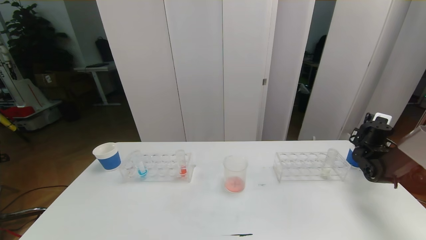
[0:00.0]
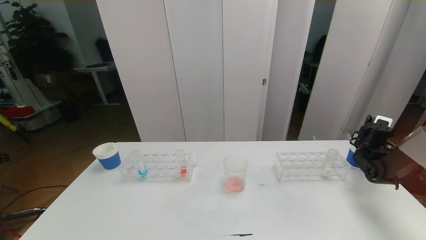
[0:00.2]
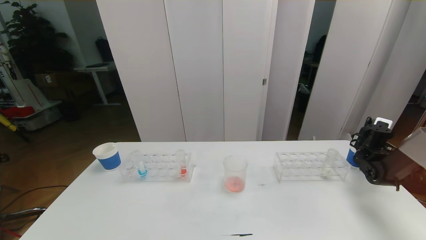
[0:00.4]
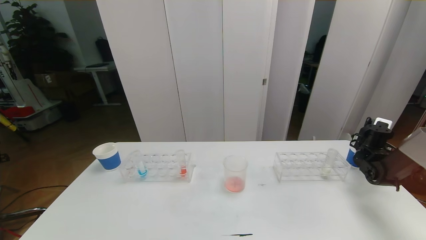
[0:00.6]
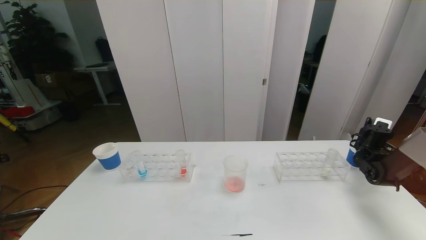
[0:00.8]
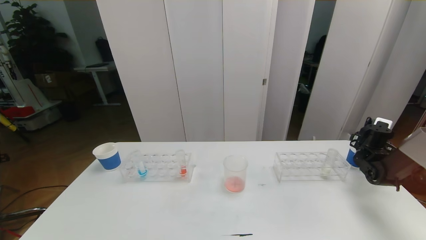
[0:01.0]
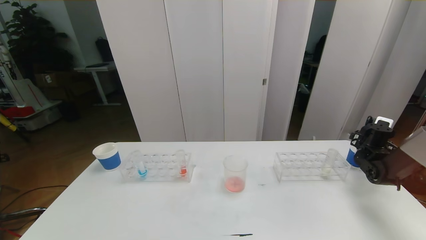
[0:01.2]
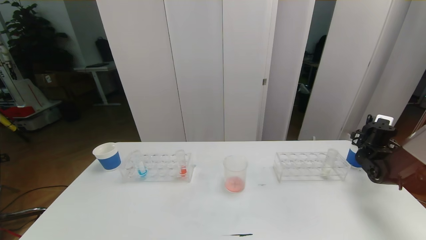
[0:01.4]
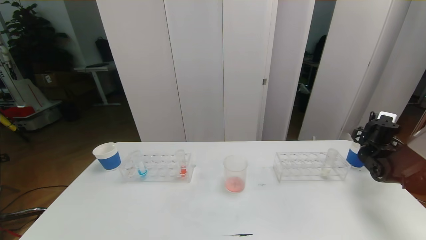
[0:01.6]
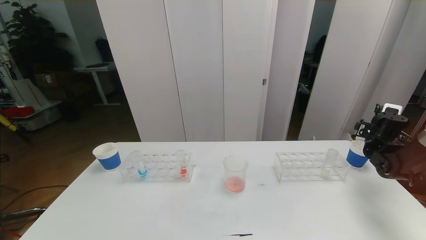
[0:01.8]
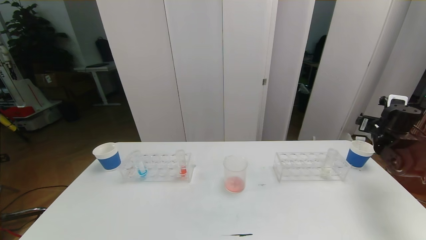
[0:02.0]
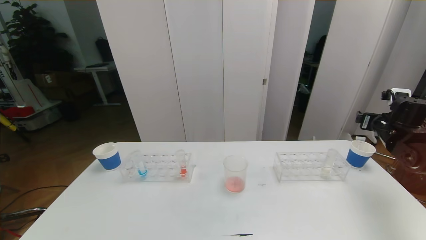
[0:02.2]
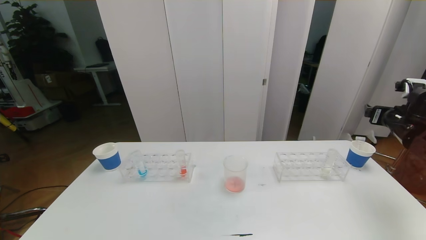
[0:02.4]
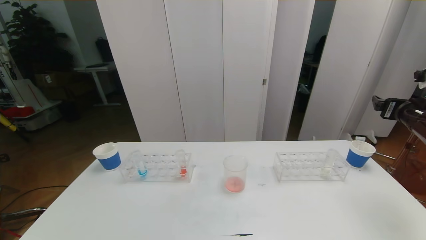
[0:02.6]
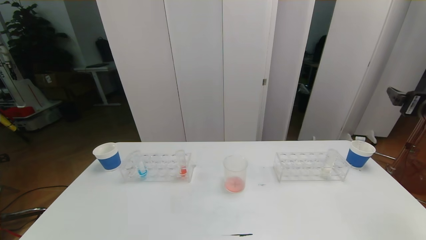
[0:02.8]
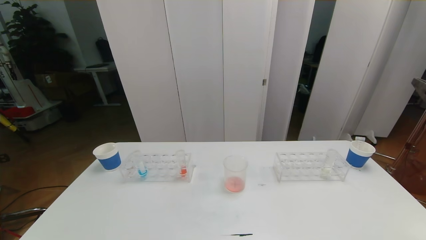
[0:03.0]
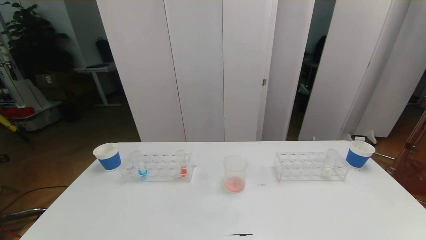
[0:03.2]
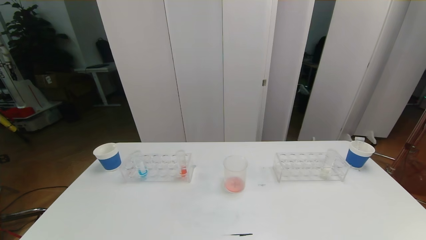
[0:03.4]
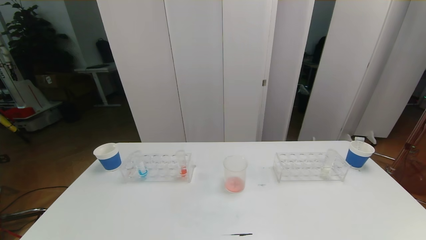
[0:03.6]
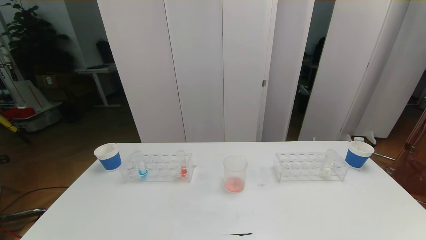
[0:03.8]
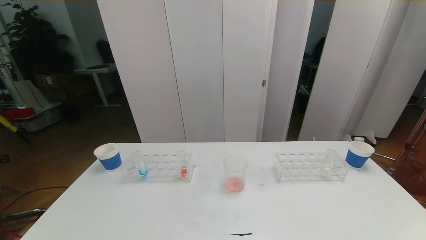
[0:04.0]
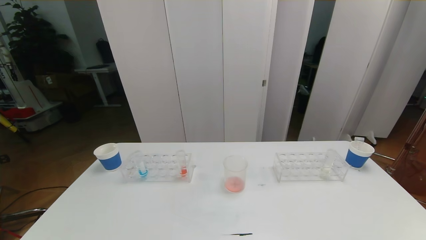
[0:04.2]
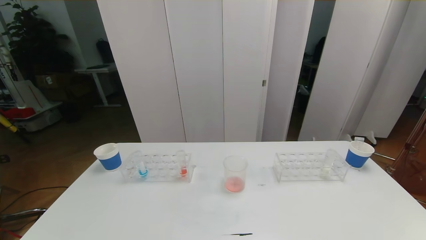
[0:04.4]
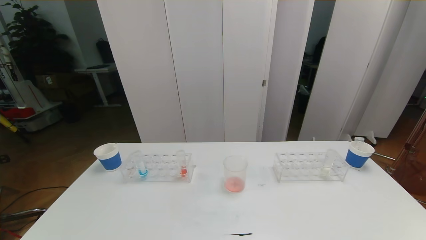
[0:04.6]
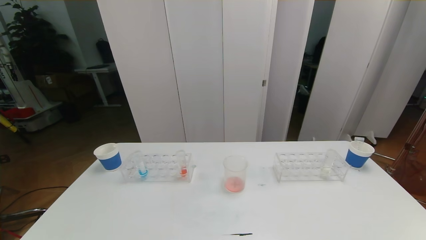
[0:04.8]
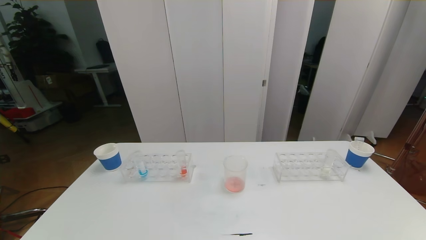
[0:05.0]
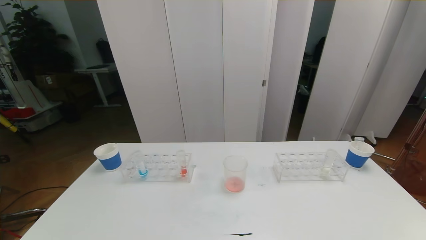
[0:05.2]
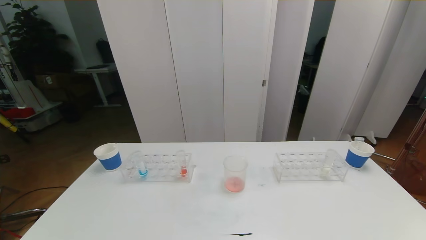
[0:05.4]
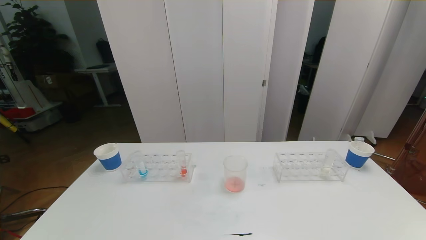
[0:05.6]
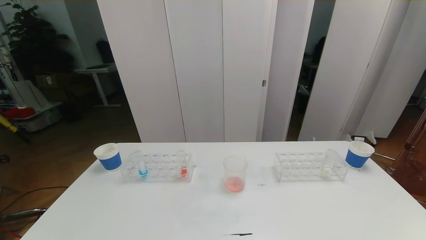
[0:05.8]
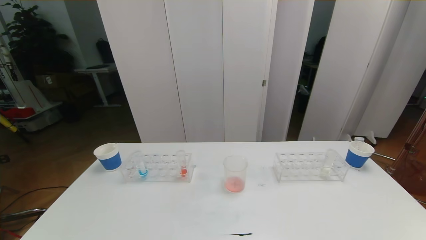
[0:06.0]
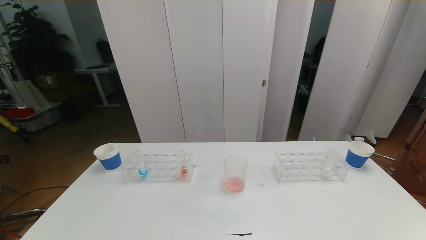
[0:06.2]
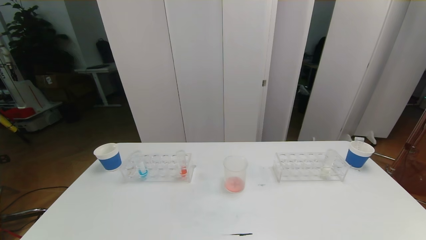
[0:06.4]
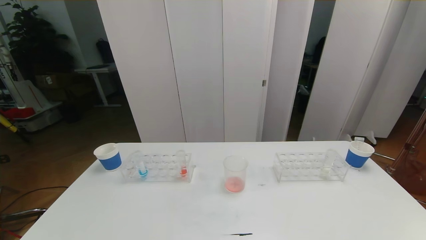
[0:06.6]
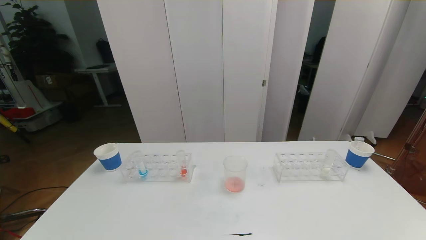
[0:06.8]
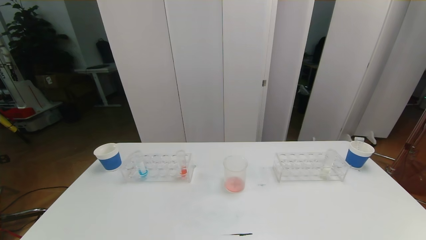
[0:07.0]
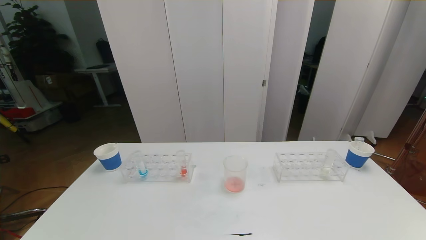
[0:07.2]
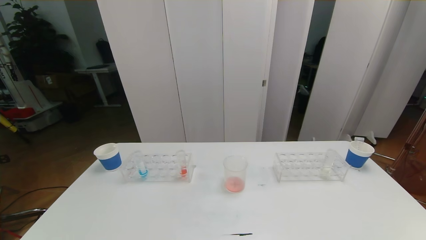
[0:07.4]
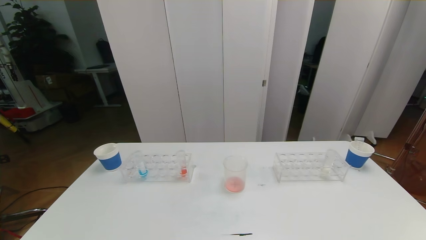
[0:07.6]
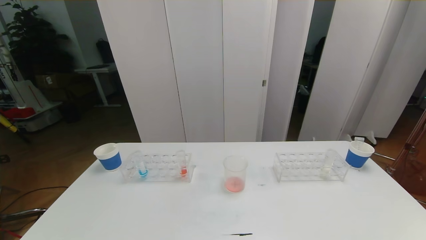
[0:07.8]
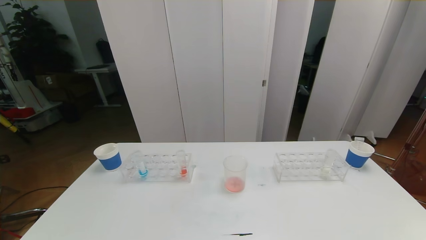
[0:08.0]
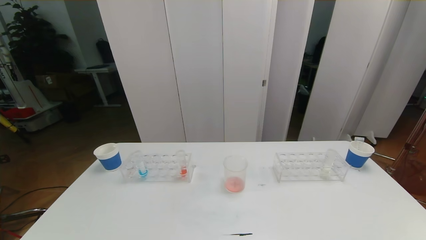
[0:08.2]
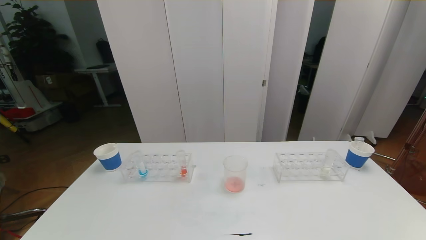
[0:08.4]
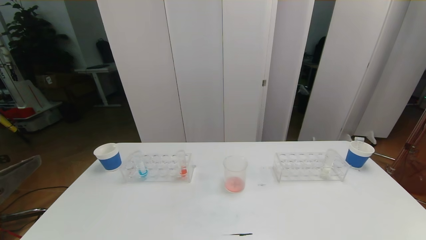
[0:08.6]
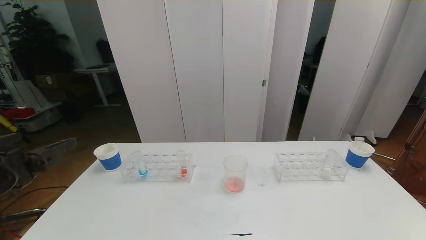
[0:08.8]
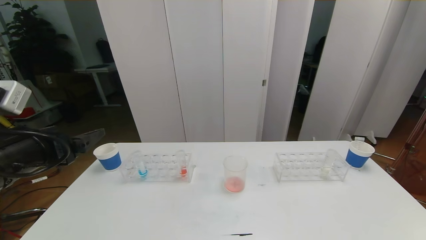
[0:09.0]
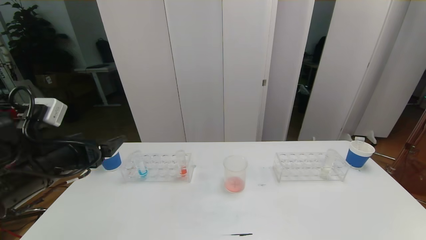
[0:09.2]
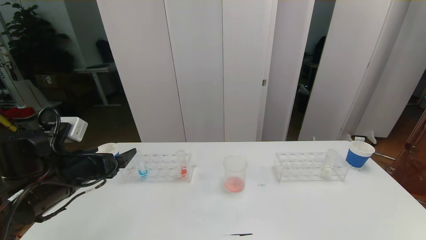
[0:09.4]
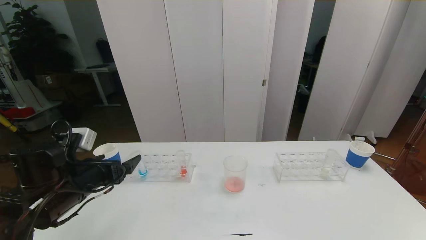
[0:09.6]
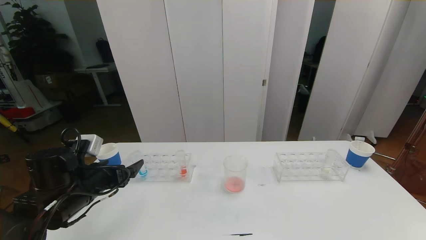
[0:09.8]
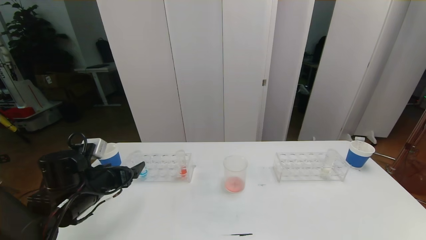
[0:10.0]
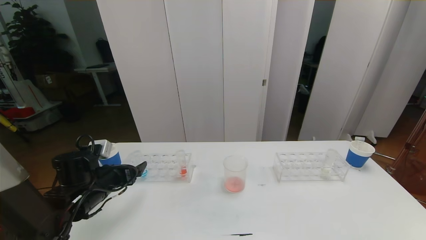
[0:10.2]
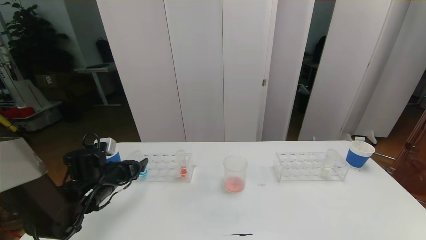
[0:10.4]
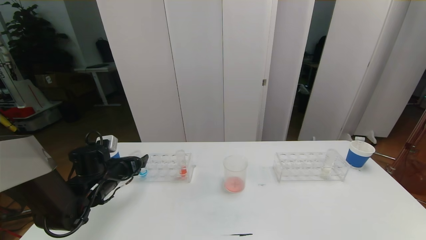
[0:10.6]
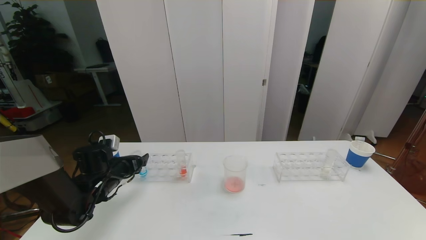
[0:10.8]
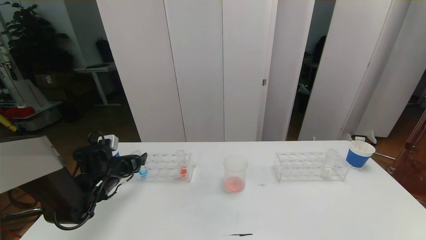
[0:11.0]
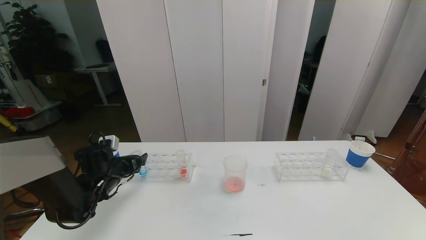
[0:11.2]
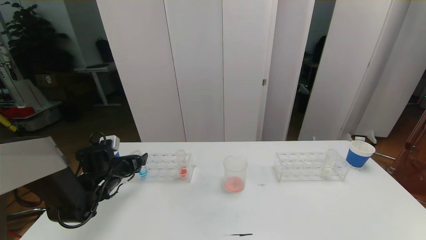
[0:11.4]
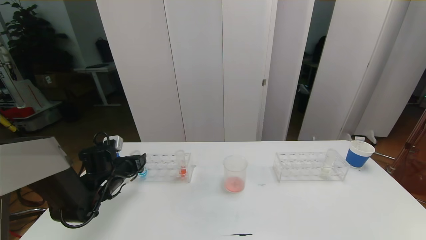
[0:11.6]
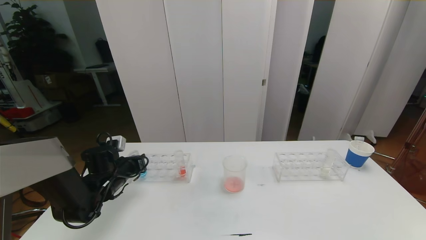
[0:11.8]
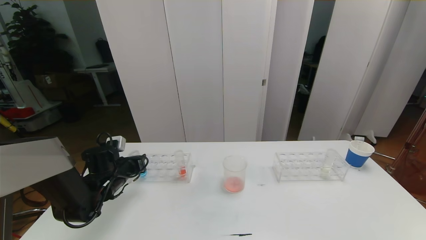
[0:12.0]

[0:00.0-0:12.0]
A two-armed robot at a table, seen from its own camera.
Task of the whole recording: pick up the test tube with red pigment the test tube with blue pigment and the test tube with white pigment by grippers and pour them into the beaker.
Step, 0:00.0 to 0:04.8: Pour the red reagent into the graduated cylinder and place the test tube into the paper cup.
0:00.0 to 0:01.6: The right gripper opens.
0:01.6 to 0:03.0: The right gripper moves backward and upward, some 30 cm.
0:04.4 to 0:06.0: The two grippers keep their place.
0:07.6 to 0:09.0: The left gripper shifts some 25 cm forward.
0:09.0 to 0:10.4: The left gripper is displaced downward and forward by roughly 20 cm.
0:10.4 to 0:12.0: The left gripper changes place by about 5 cm, and closes its fingers.

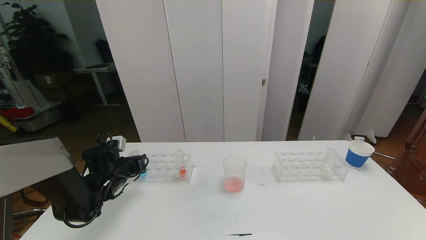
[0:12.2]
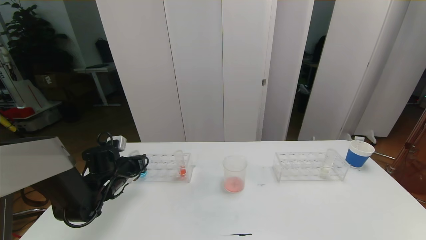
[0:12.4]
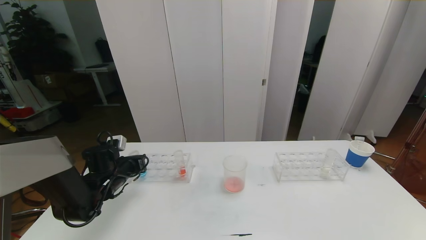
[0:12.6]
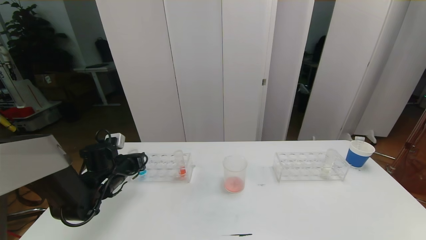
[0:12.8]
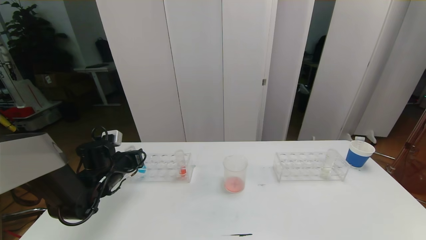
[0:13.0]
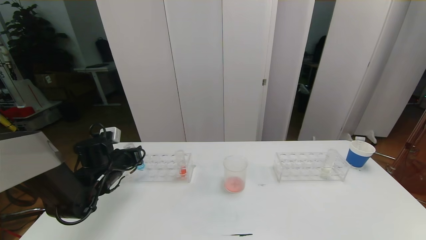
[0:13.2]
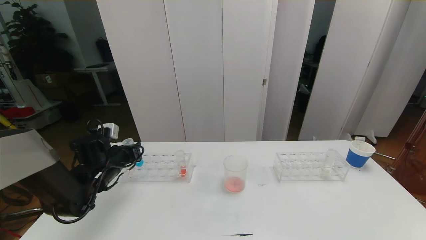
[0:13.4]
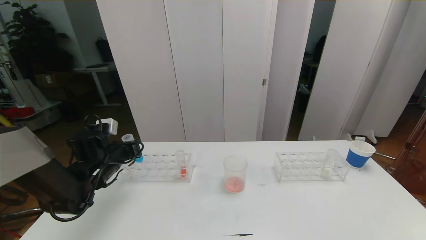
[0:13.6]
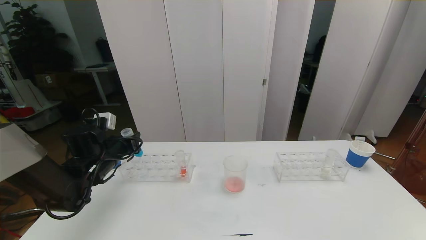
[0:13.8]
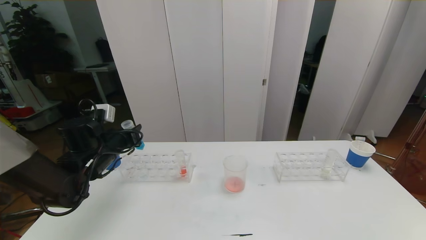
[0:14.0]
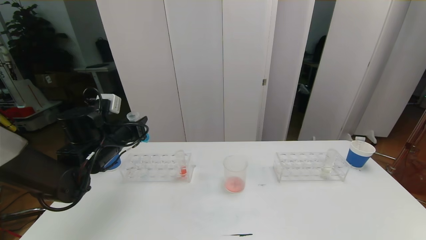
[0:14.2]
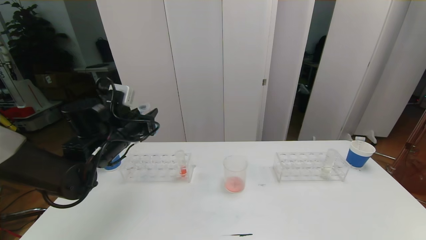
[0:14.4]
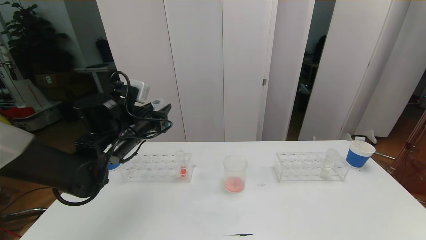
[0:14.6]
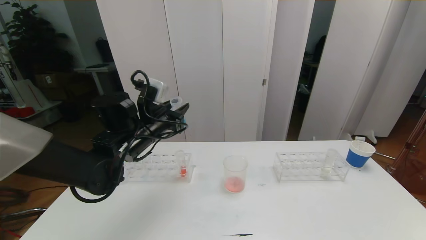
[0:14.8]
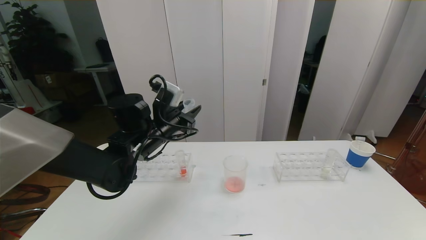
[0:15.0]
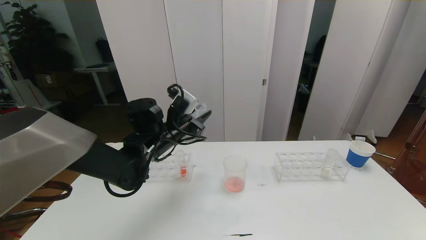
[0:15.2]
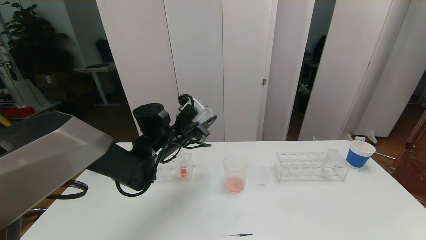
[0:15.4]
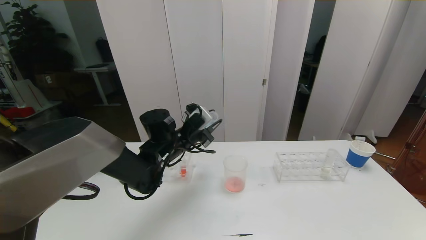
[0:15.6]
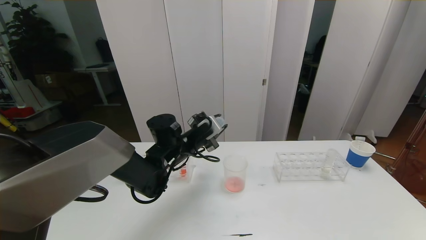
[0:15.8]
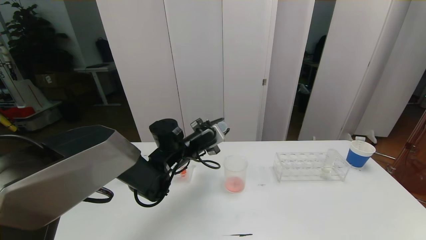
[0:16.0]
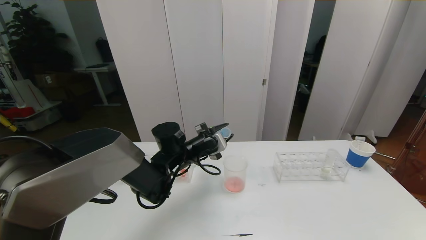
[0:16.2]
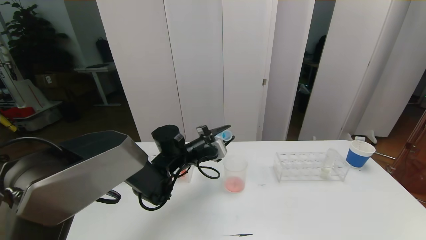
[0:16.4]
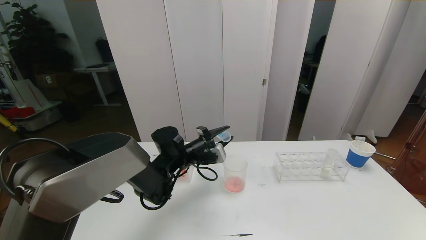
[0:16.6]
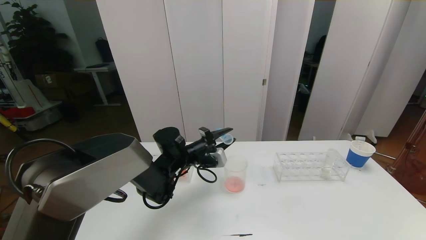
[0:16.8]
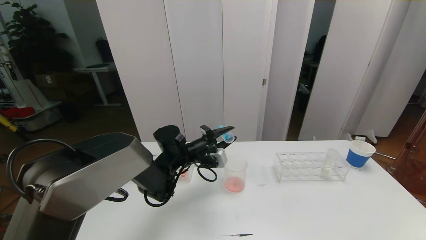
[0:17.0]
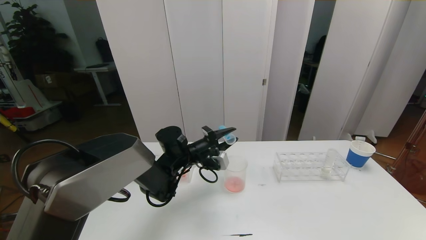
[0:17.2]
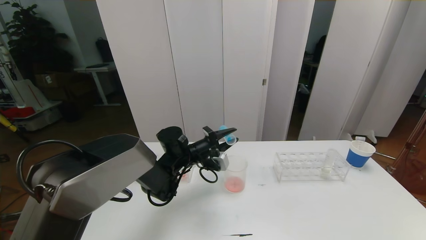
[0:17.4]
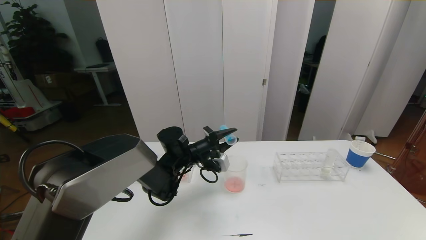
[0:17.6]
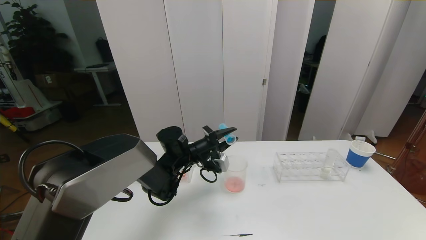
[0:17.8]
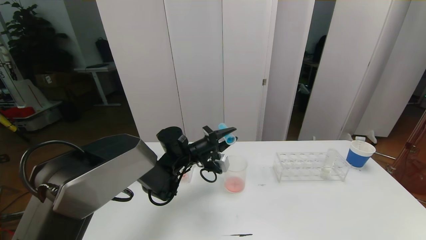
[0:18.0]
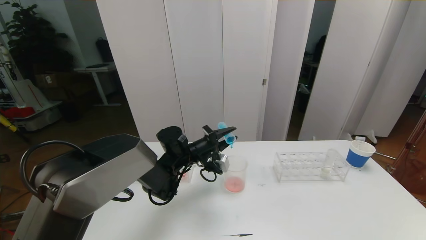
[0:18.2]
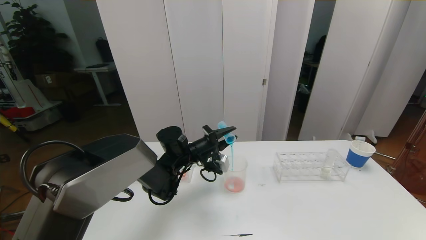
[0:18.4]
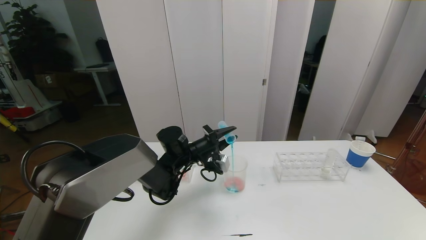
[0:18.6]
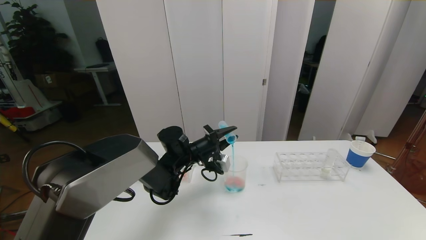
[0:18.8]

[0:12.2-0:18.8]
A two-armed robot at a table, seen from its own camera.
Task of the whole recording: pick up the test tube with red pigment the test tube with blue pigment and the test tube with white pigment by grippers and pour them into the beaker.
0:12.2 to 0:13.8: The left gripper moves upward, about 10 cm.
0:13.8 to 0:15.4: The left gripper is displaced to the right by about 15 cm.
0:15.4 to 0:17.2: The left gripper travels downward by some 5 cm.
0:17.2 to 0:18.8: The grippers move only a little.
